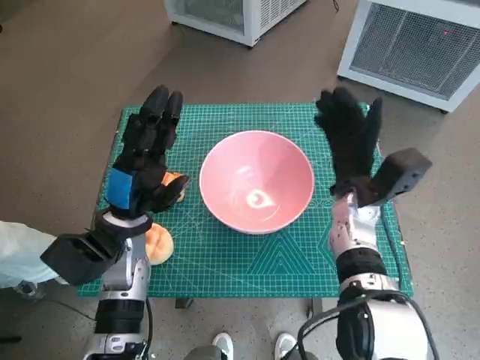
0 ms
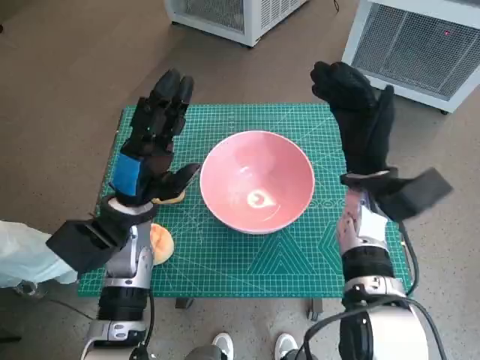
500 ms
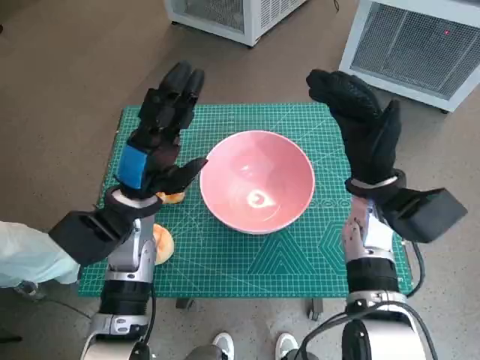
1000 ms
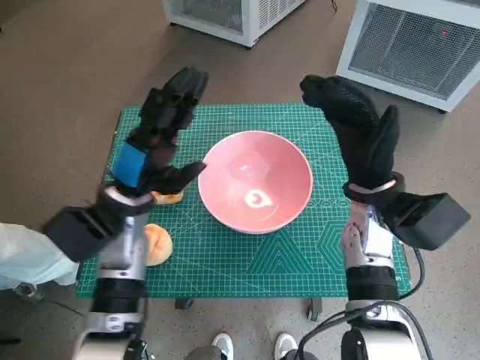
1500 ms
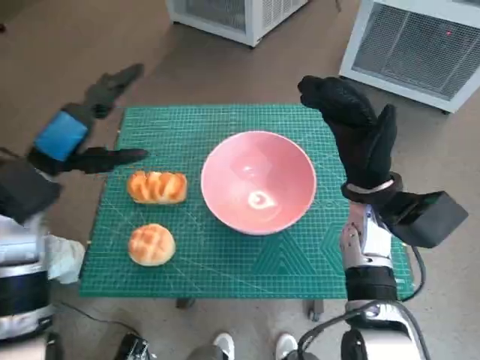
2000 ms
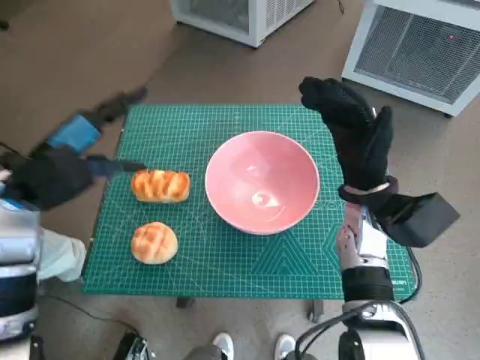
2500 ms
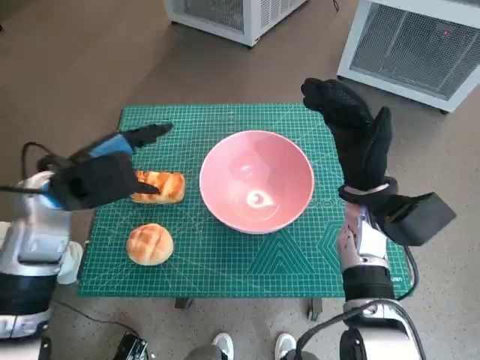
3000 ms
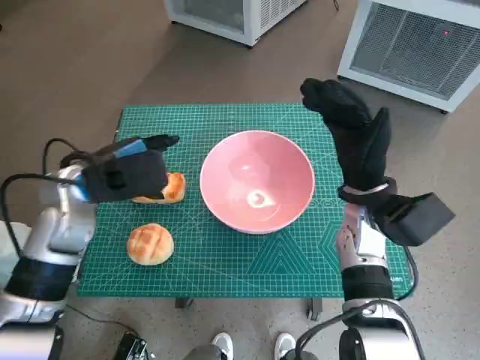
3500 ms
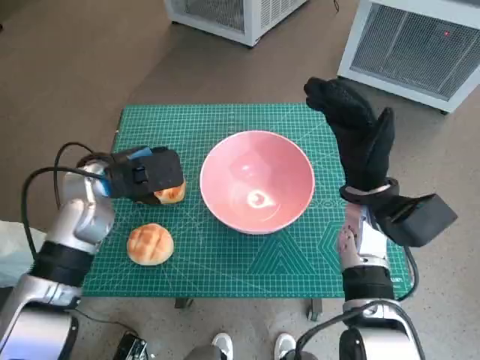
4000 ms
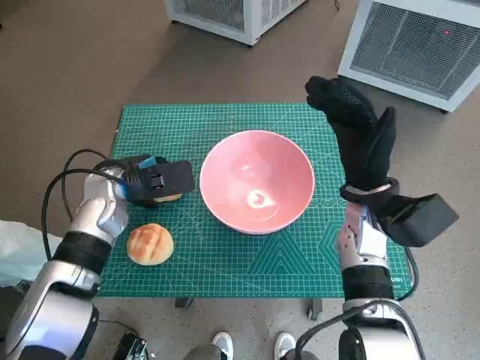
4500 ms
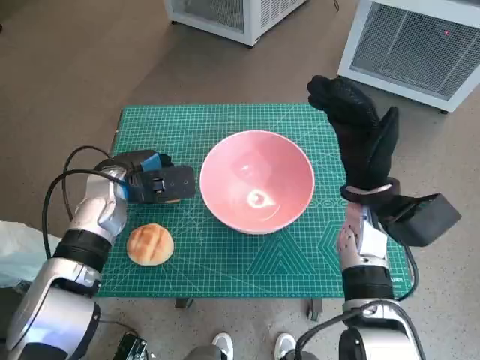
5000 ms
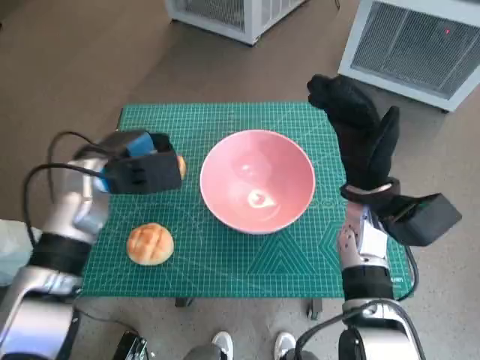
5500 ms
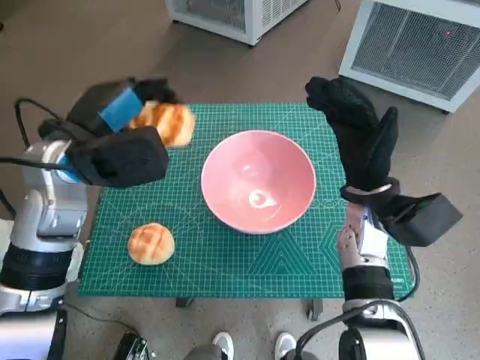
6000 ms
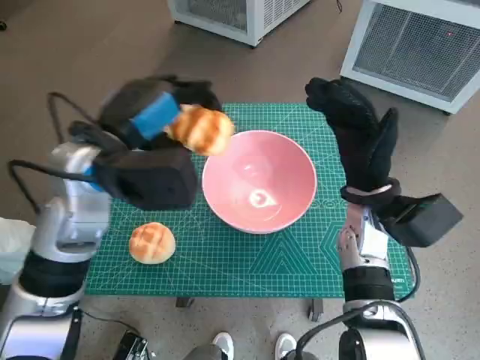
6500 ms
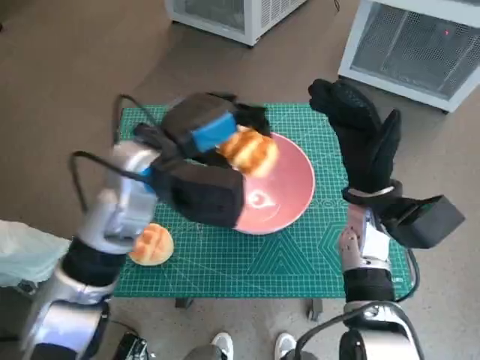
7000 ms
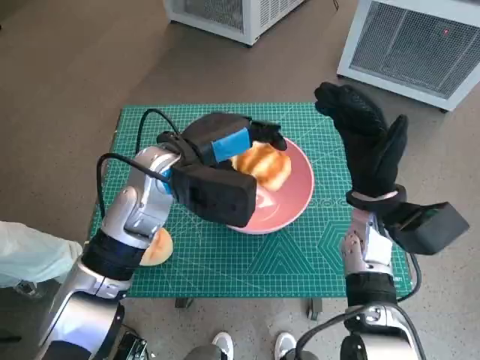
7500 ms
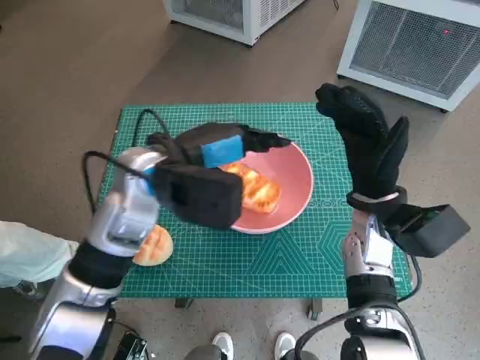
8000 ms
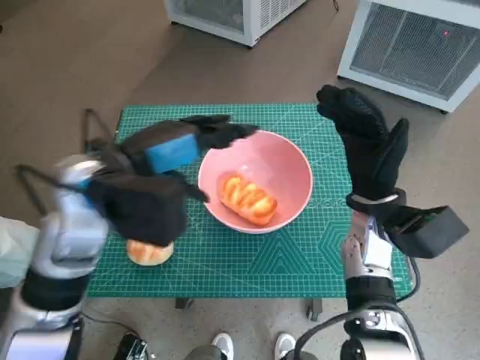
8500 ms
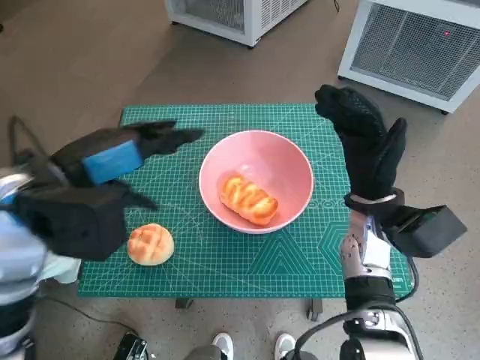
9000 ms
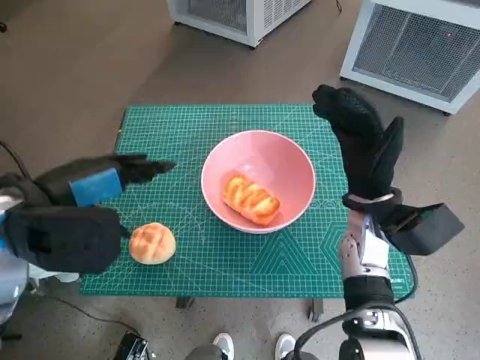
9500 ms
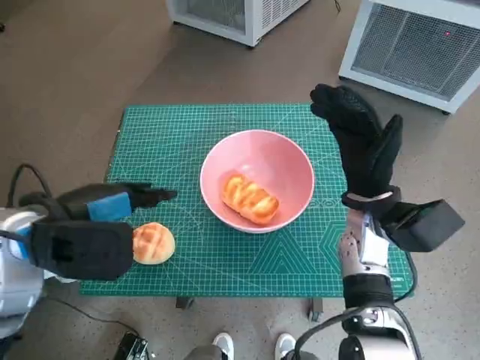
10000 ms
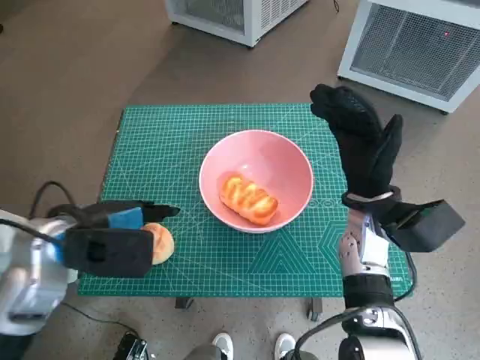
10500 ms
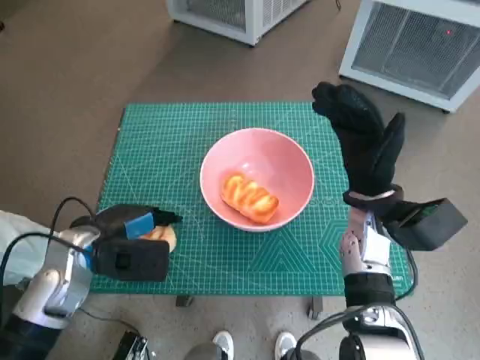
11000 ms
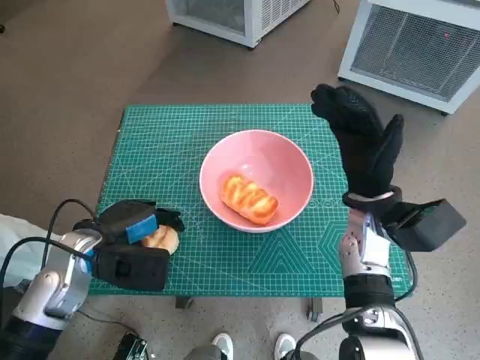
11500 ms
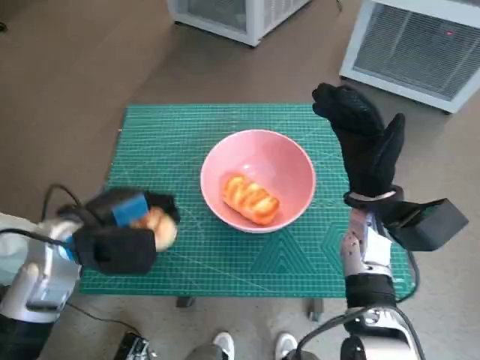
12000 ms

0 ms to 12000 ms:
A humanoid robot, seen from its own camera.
Task of the whole recording: Push the bowl into the center of the table and put the bread into the bowl.
Step, 0 ms to 4500 ms: Grasp the long bread with left hand.
Step, 5000 ms to 8000 ms: Place the long bread in pink bowl with left hand.
Step, 8500 ms to 11000 ms: Grasp the round bread with left hand.
0 ms to 2000 ms: The right hand shifts by about 5 cm. Meanwhile the left hand moves upward and to the left, roughly 10 cm.
2000 ms to 4000 ms: The left hand ends up approximately 5 cm from where it was.
4000 ms to 6000 ms: The left hand is displaced upward by some 5 cm.
6000 ms to 8000 ms: The left hand heads to the right, covering about 10 cm.
8000 ms to 10000 ms: The left hand goes some 15 cm to the left and backward.
10000 ms to 12000 ms: The left hand travels downward by some 5 cm.

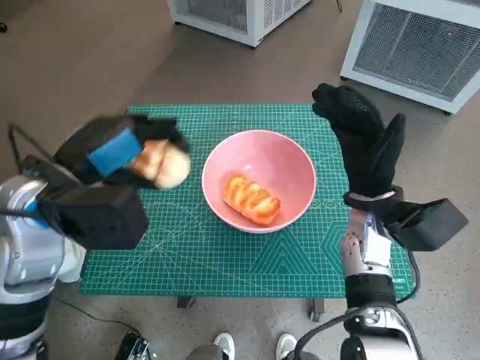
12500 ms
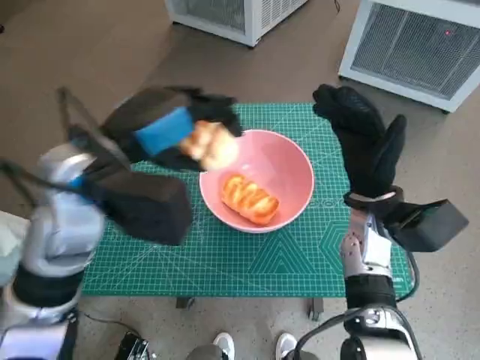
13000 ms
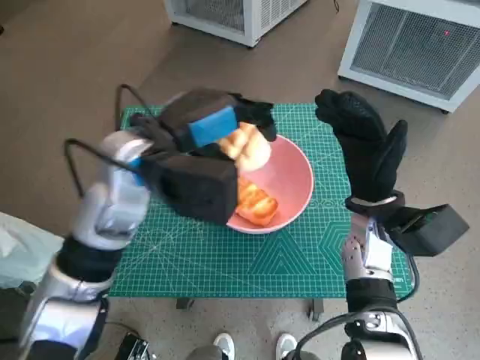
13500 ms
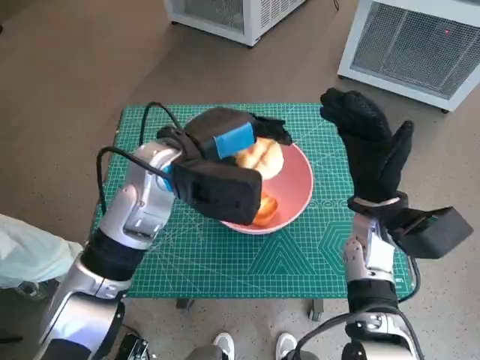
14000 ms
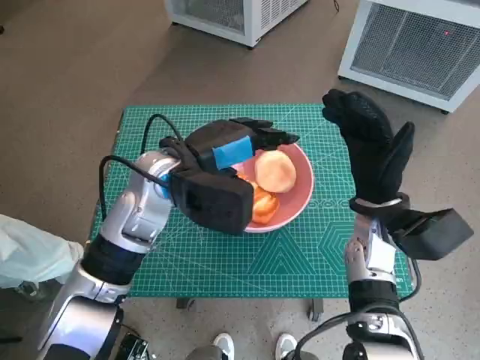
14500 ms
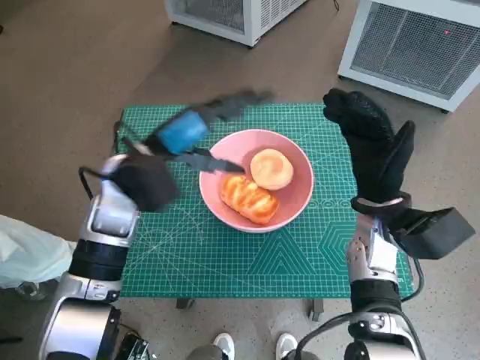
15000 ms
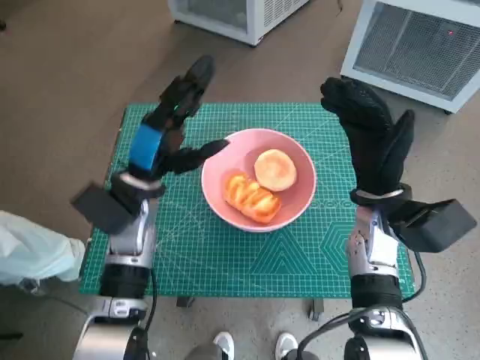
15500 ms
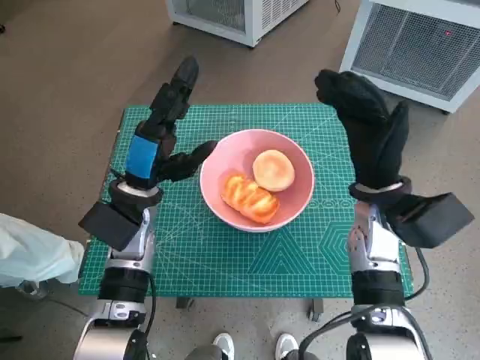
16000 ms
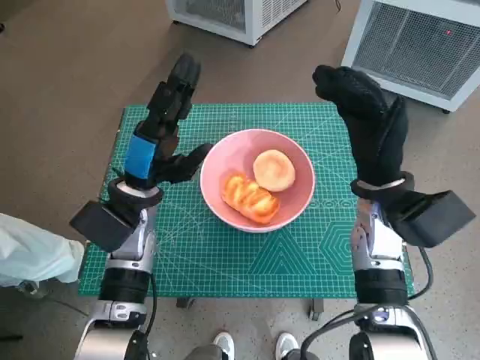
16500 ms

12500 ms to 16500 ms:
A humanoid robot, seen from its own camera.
Task of the whole recording: Push the bowl into the center of the table and put the bread into the bowl.
12500 ms to 14500 ms: The left hand heads to the right and forward, covering approximately 10 cm.
14500 ms to 16500 ms: The left hand heads downward and to the left, covering about 10 cm.
